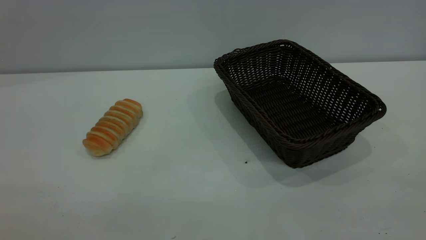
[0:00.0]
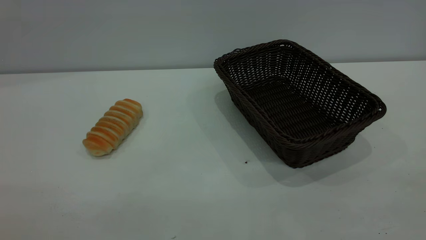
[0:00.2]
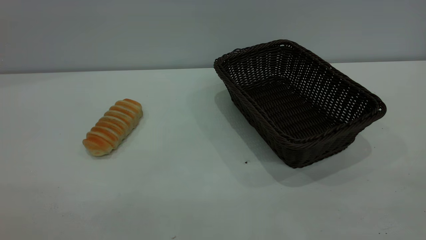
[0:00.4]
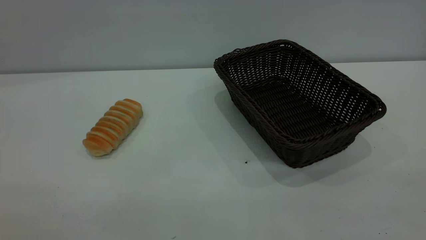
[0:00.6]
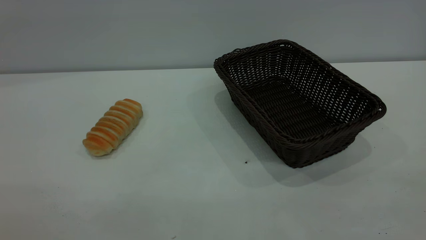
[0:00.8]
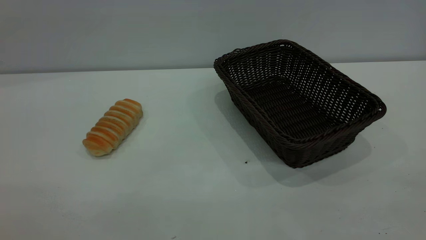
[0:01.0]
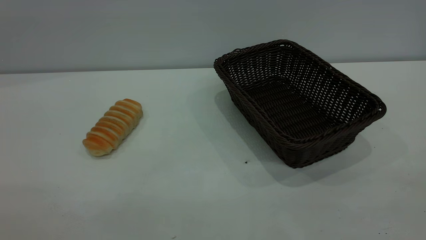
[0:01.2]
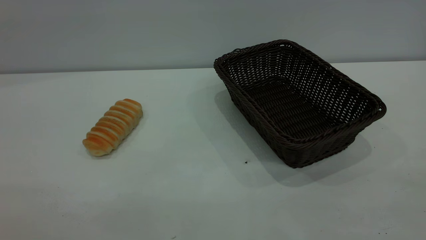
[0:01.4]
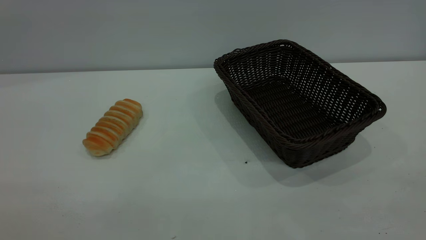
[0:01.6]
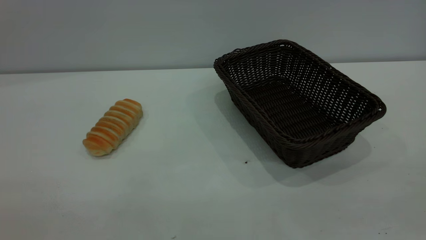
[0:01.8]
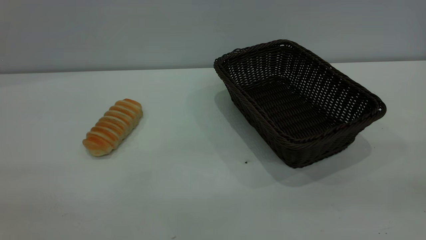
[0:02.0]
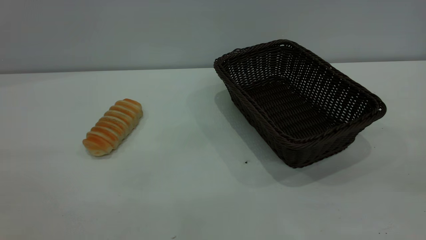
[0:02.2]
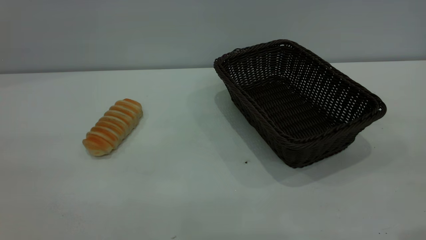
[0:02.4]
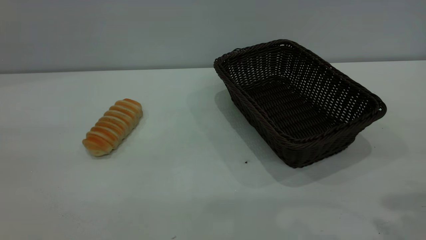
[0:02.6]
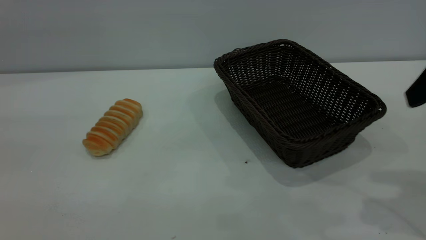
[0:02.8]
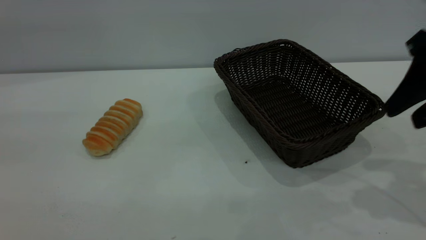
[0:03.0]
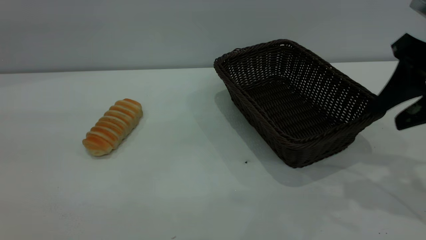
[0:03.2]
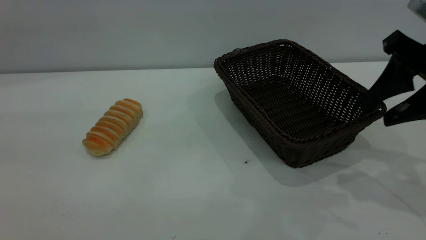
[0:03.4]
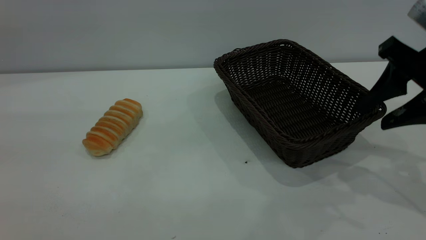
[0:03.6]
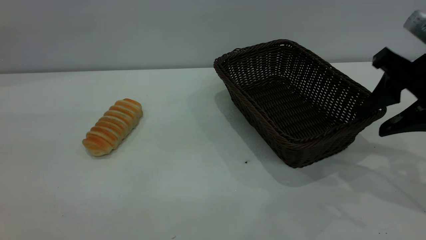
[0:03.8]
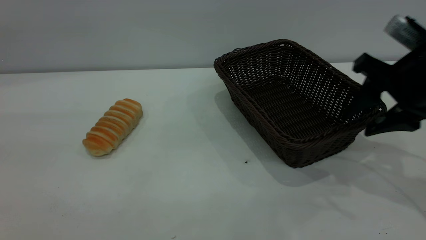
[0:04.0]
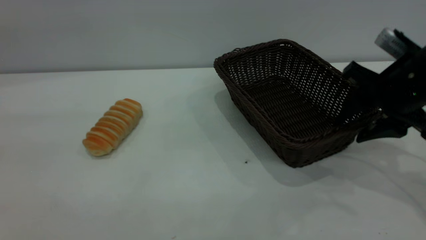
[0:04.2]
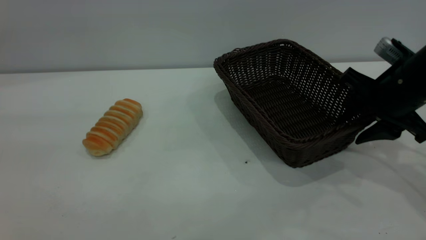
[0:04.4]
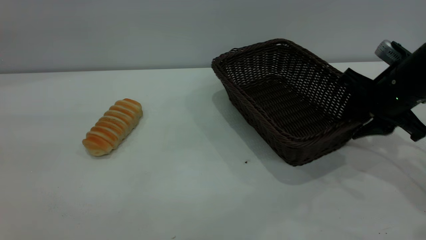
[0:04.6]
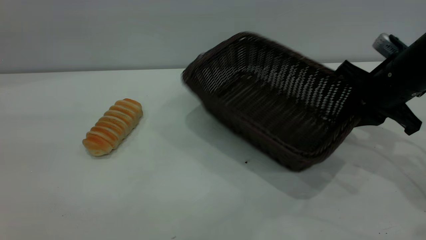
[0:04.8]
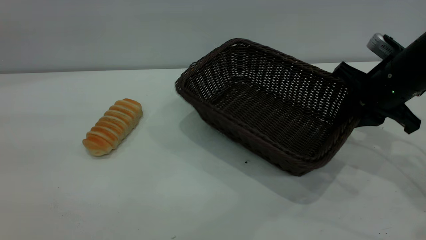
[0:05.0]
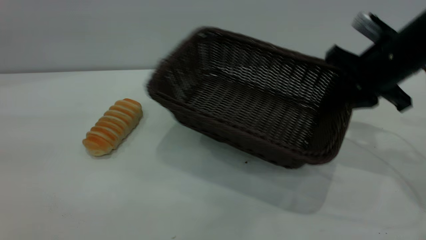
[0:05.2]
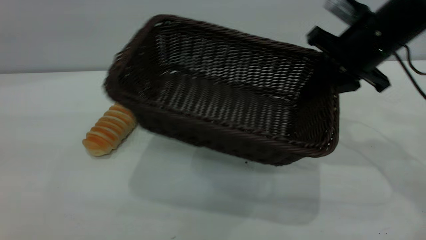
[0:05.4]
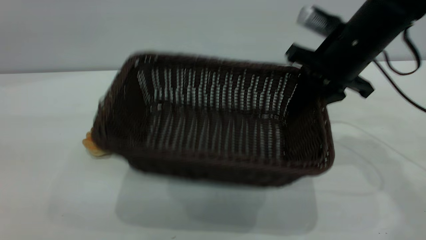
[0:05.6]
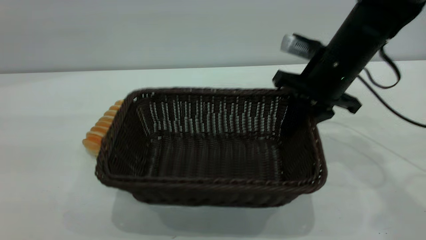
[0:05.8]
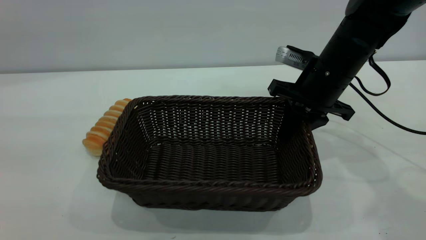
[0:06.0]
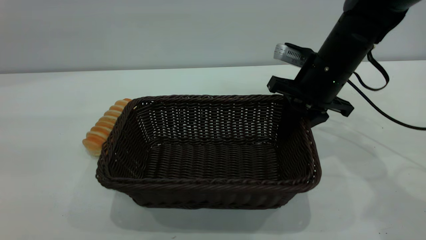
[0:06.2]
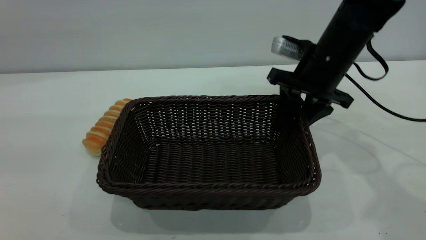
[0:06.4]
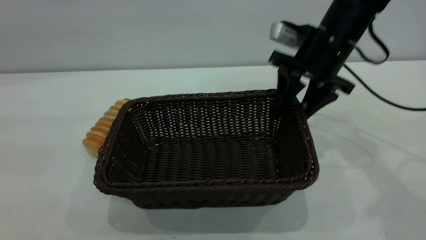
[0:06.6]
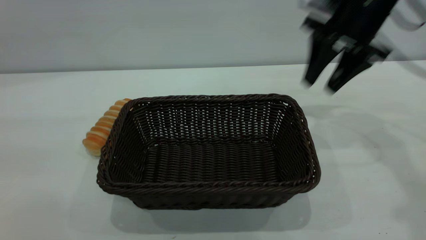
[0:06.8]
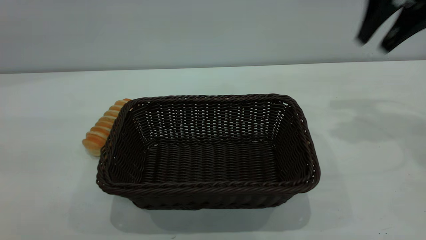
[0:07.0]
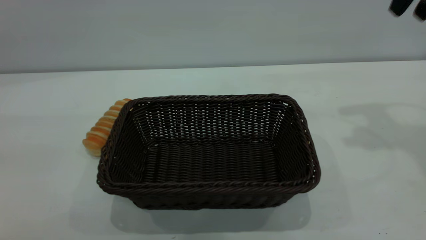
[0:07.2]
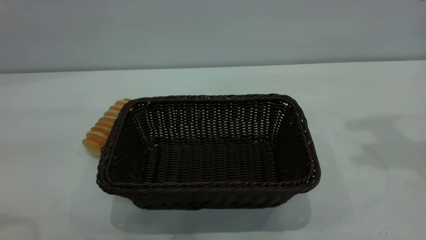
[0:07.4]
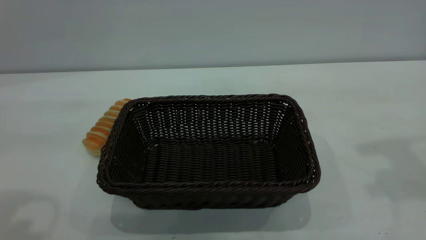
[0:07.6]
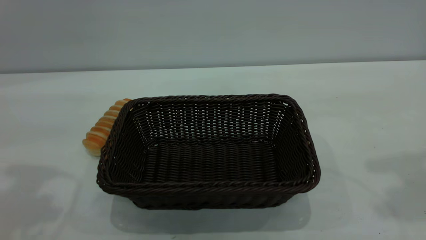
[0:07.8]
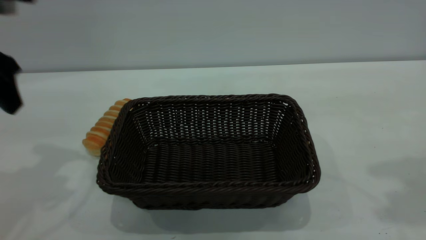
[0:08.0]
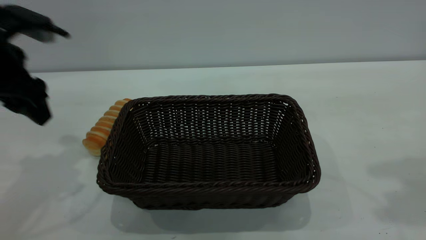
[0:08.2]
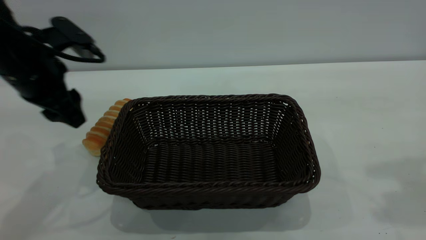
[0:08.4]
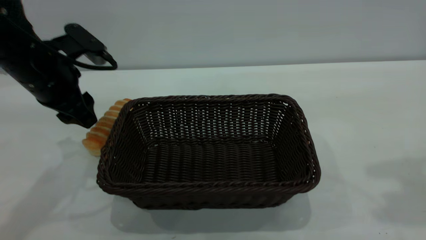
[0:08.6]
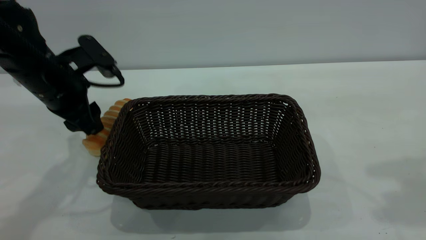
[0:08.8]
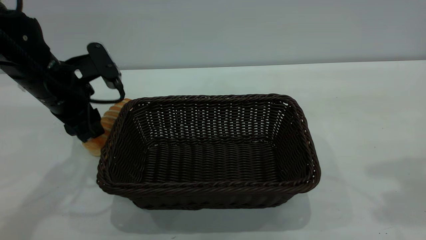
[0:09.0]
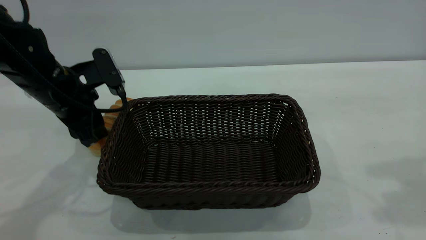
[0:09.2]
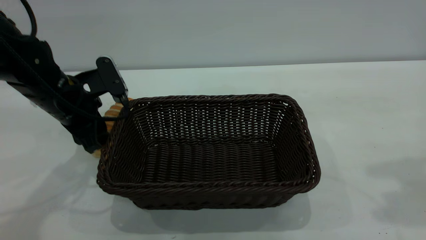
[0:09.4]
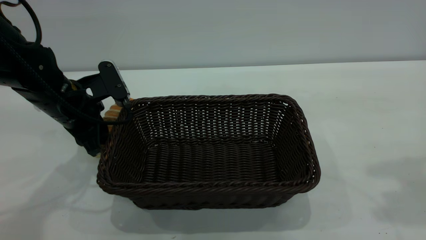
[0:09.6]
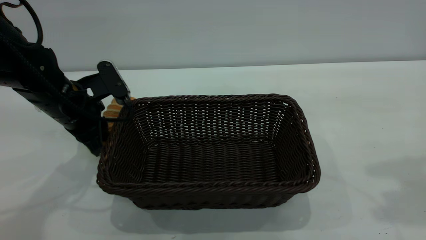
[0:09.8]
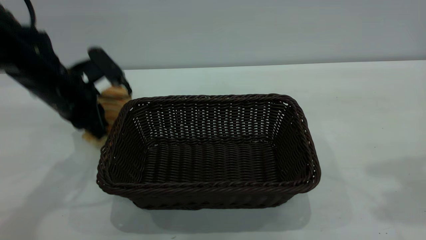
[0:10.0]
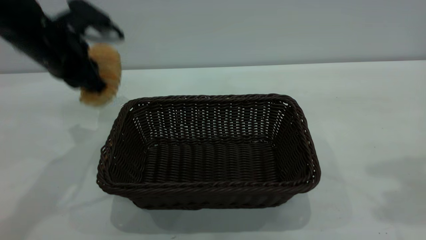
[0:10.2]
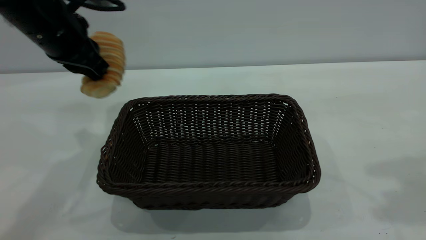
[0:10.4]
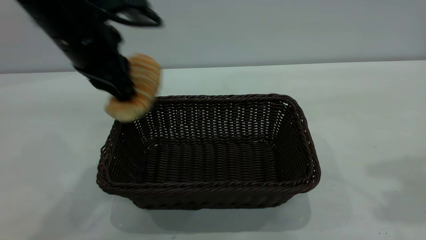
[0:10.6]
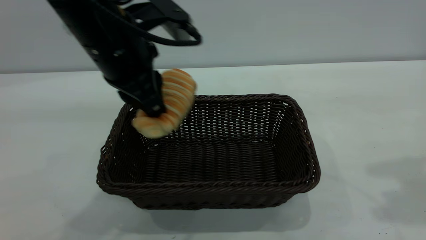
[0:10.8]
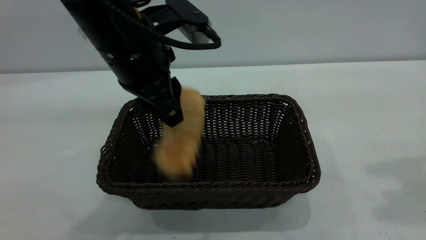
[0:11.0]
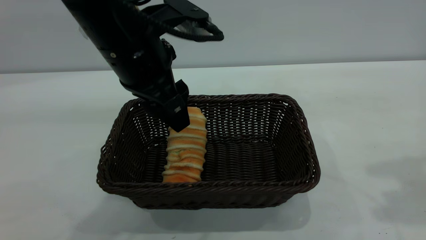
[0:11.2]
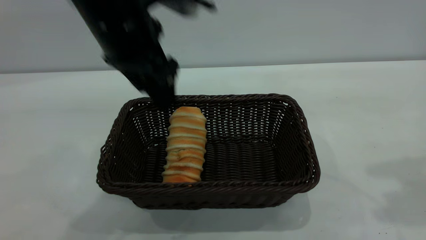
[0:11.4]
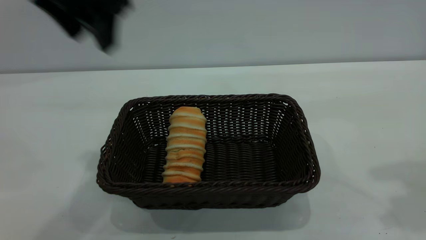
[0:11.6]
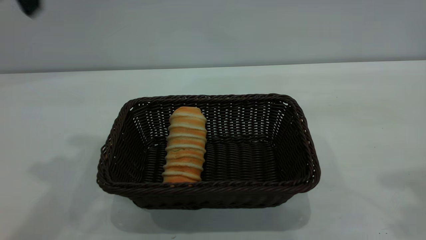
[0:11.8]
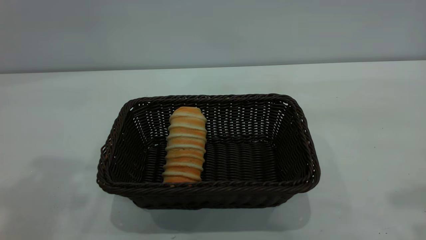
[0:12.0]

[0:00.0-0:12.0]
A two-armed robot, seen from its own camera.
Task of the whole recording: One hand grasps the black basket and places it in the middle of the table, while the other hand picks up the long bread and puts it into the black basket.
Step, 0:00.0 to 0:06.6: Move the basket to the center of view.
Step, 0:10.4 to 0:11.4: place the bread into the basket.
0:00.0 to 0:01.6: Both grippers stay put.
0:01.6 to 0:03.0: The right gripper heads forward, covering some 30 cm.
0:03.0 to 0:04.4: The right gripper is displaced downward and forward by some 10 cm.
0:04.4 to 0:06.0: The right gripper shifts about 10 cm to the left and forward, and closes up.
0:06.0 to 0:07.6: The left gripper moves forward, roughly 10 cm. The right gripper heads upward, to the right and backward, covering about 30 cm, and opens up.
0:07.6 to 0:09.0: The left gripper shifts some 25 cm downward and forward.
0:09.0 to 0:10.4: The left gripper heads upward, covering roughly 10 cm, and closes.
0:10.4 to 0:12.0: The right gripper is displaced backward by some 5 cm, while the left gripper travels upward and backward by some 25 cm, and opens its fingers.
